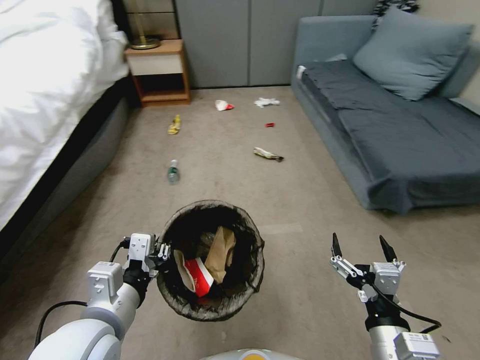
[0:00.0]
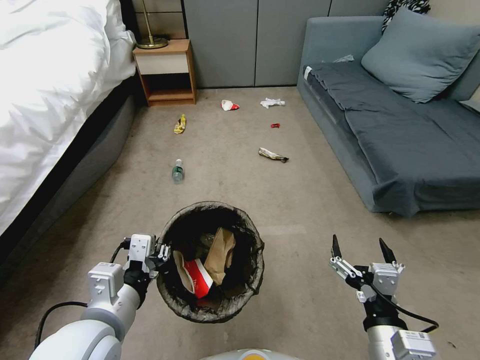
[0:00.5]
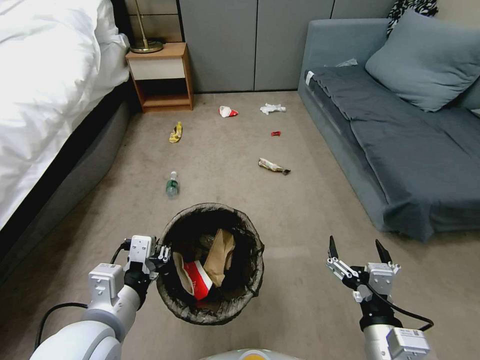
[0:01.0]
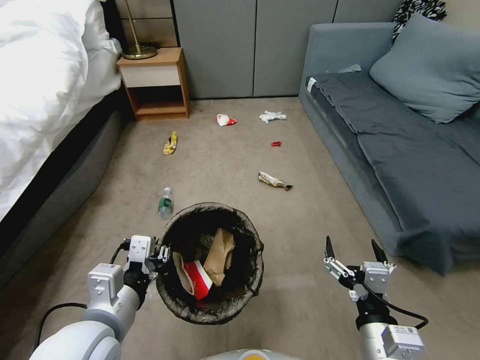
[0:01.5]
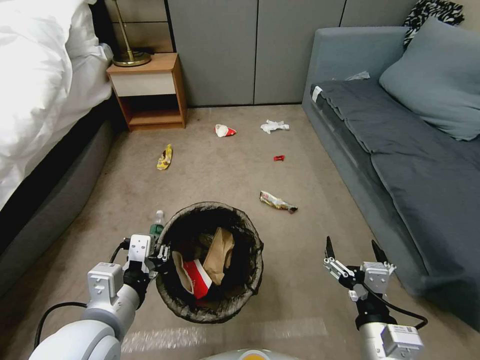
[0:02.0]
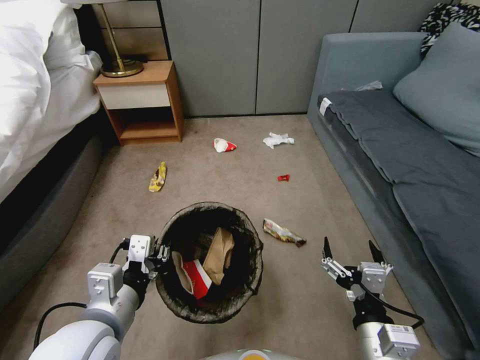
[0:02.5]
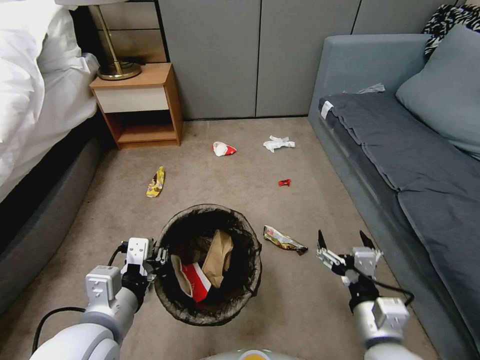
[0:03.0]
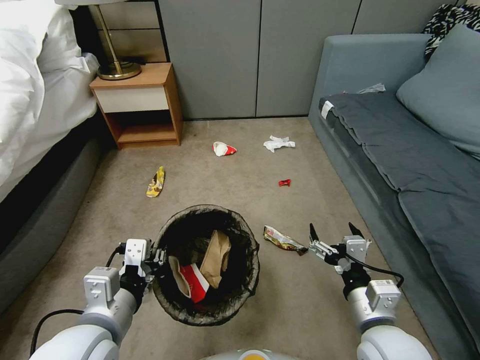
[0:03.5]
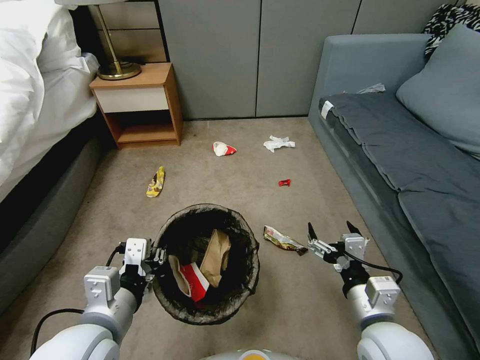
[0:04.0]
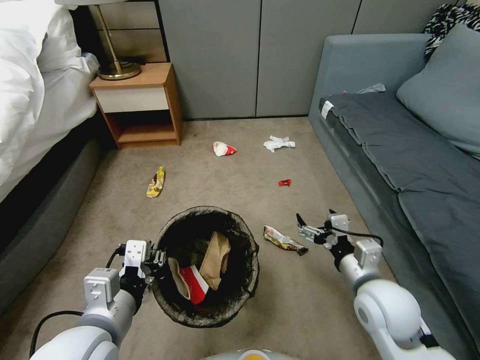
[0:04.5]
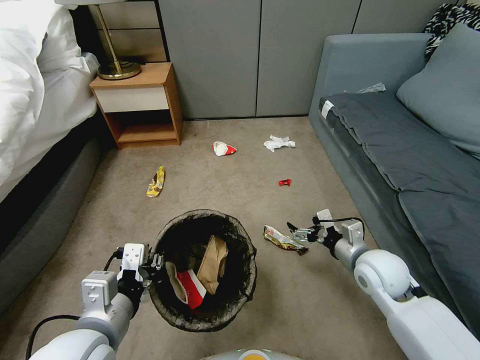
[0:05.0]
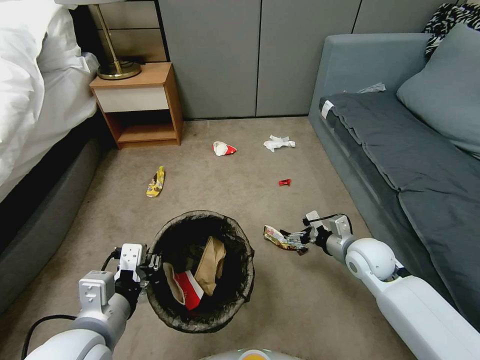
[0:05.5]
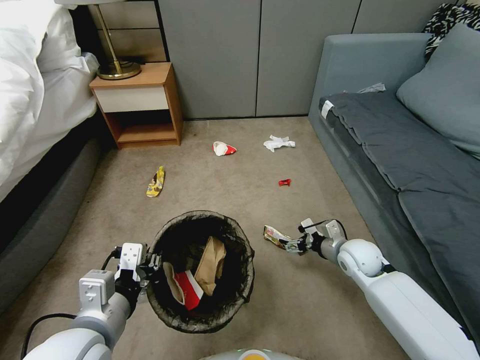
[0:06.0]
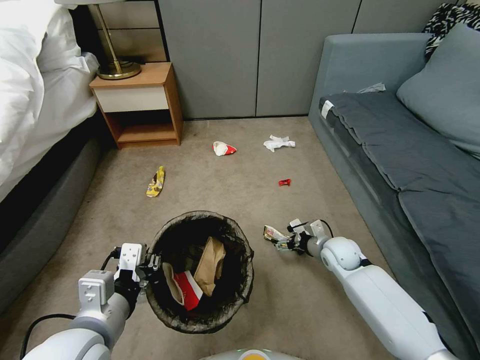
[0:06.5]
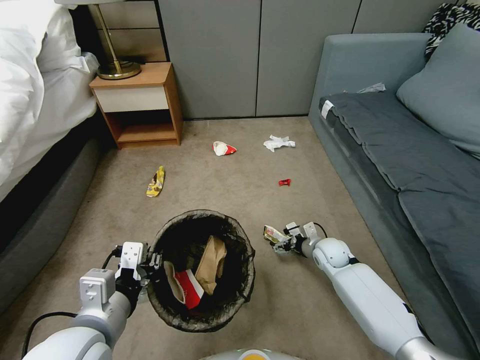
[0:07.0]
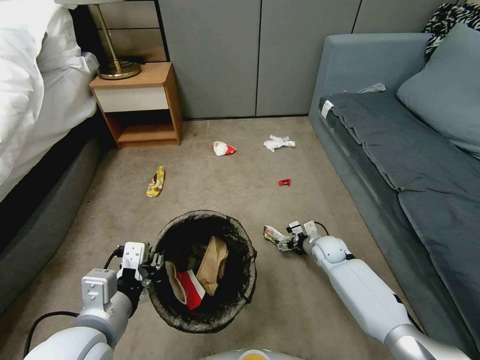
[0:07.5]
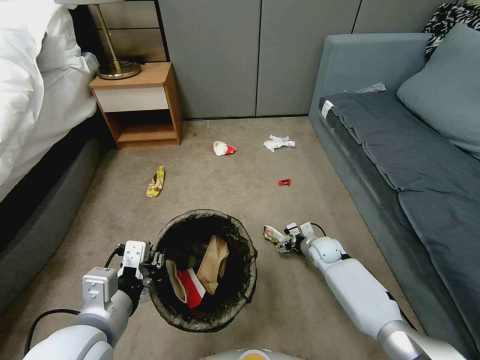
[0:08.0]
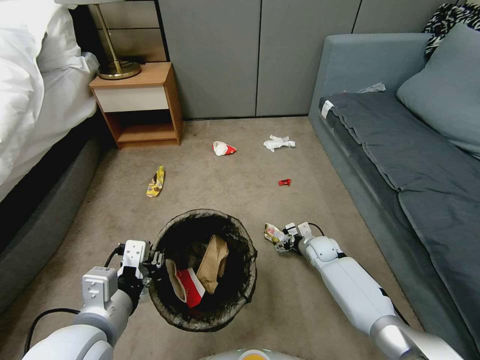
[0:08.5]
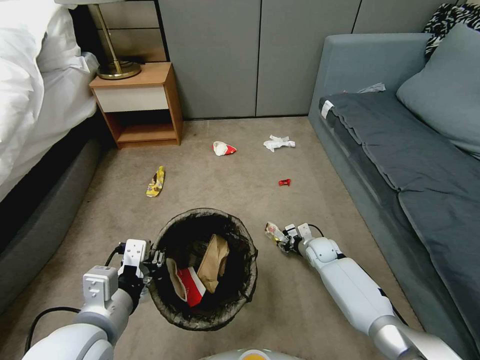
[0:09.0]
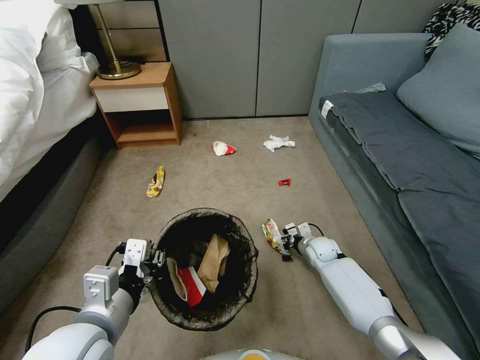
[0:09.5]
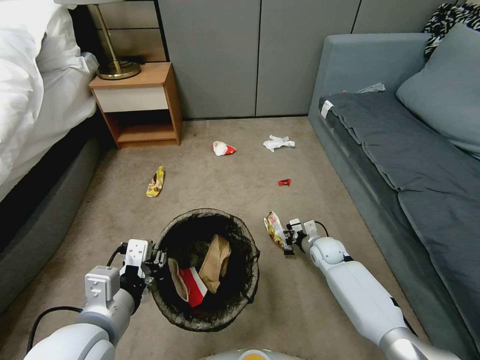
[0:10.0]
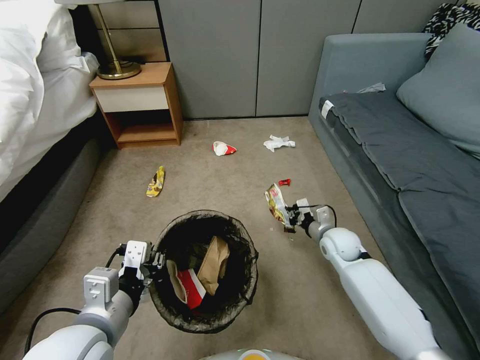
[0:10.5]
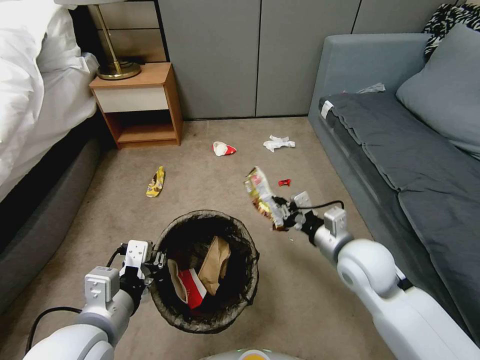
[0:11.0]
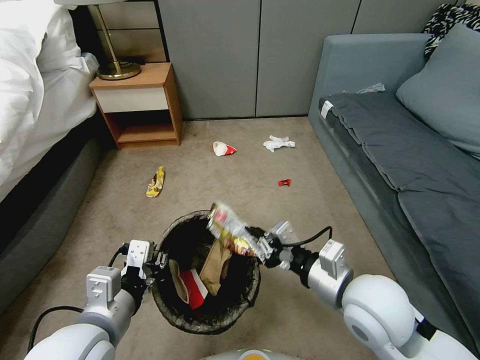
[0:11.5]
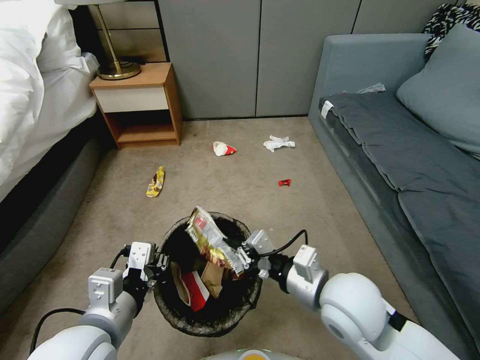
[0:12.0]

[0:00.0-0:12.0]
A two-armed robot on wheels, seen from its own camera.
Task of the whole recording: Pick up the trash bin, then pick up the garbage from the floor and place it into the trash bin.
0:02.0 to 0:04.0: The right gripper travels forward by about 5 cm.
0:04.0 to 0:06.0: The right gripper travels forward and downward by approximately 25 cm.
0:06.0 to 0:08.0: The right gripper moves downward and forward, some 10 cm.
0:08.0 to 0:10.0: The right gripper closes.
0:10.0 to 0:12.0: The right gripper heads upward and backward, covering about 30 cm.

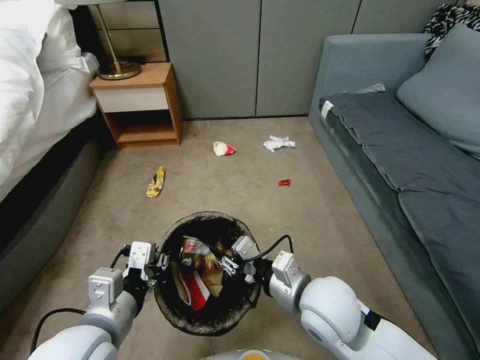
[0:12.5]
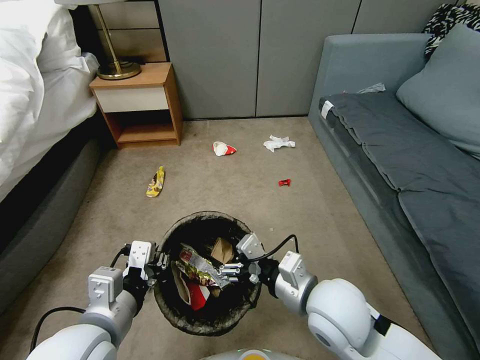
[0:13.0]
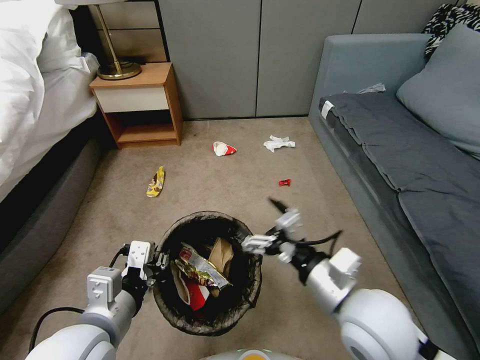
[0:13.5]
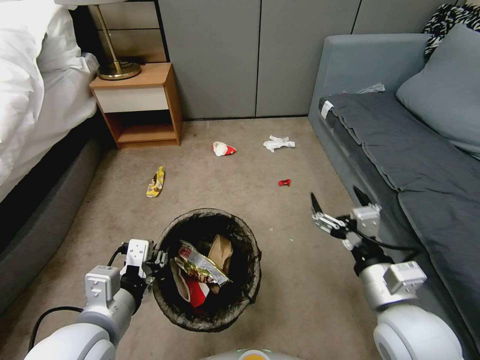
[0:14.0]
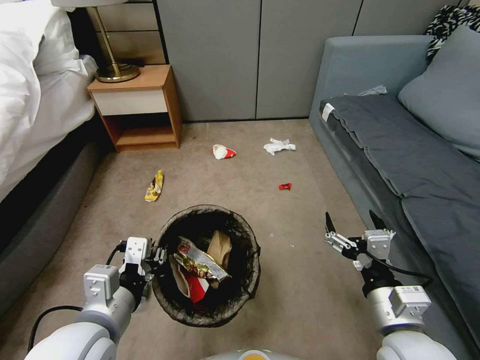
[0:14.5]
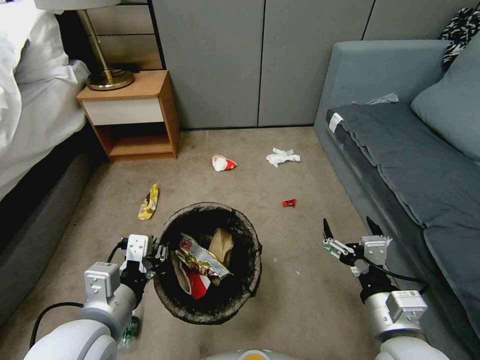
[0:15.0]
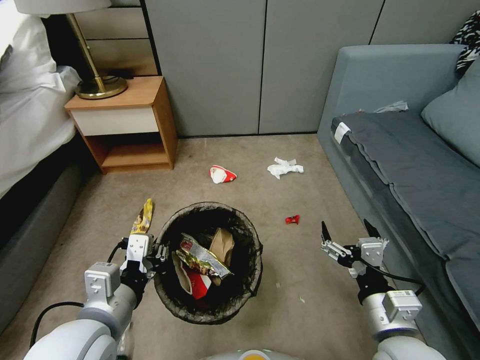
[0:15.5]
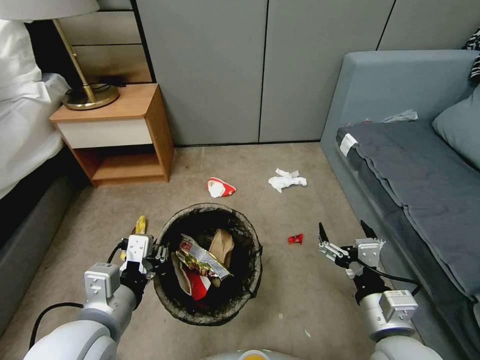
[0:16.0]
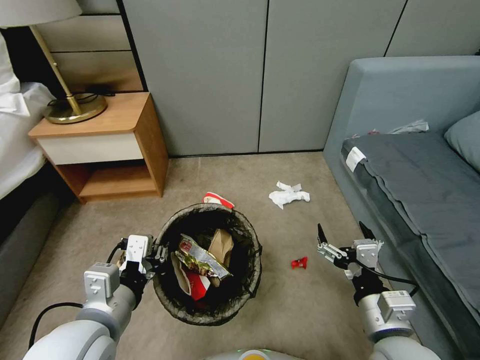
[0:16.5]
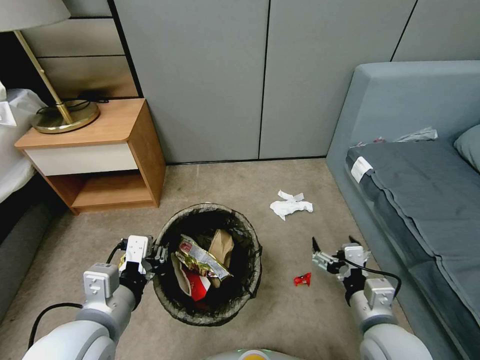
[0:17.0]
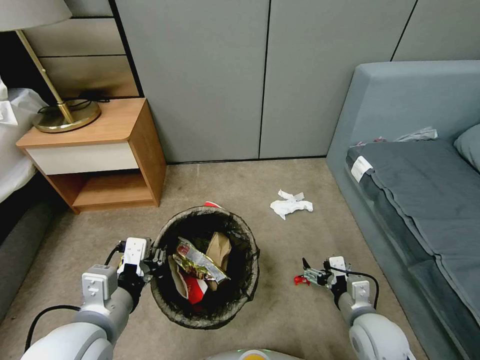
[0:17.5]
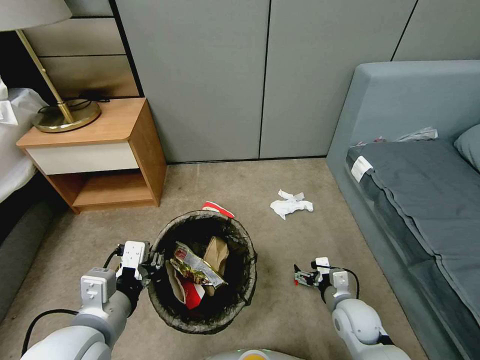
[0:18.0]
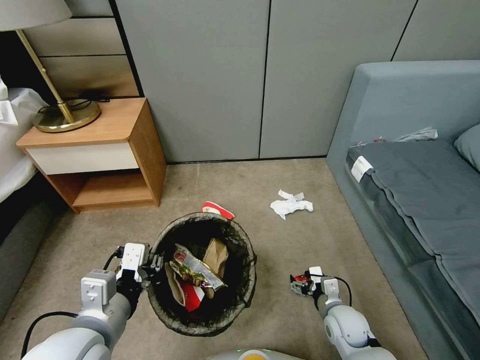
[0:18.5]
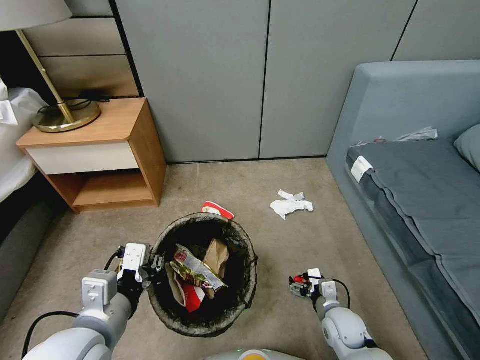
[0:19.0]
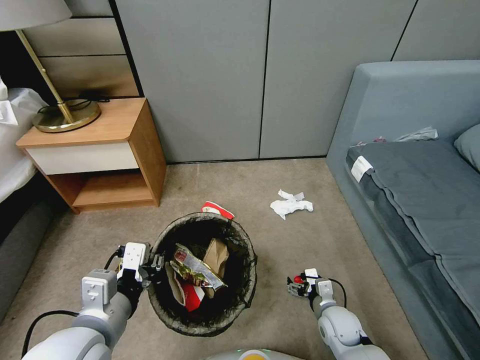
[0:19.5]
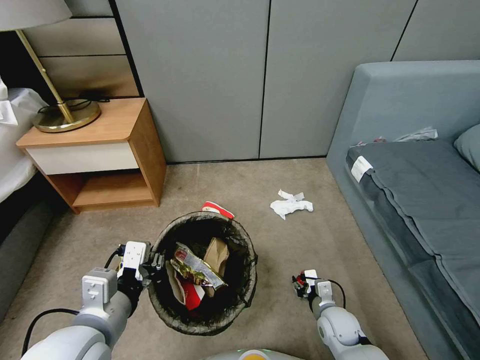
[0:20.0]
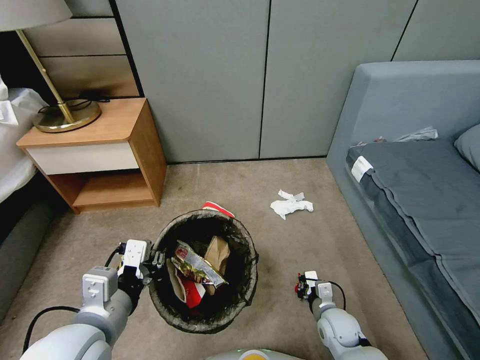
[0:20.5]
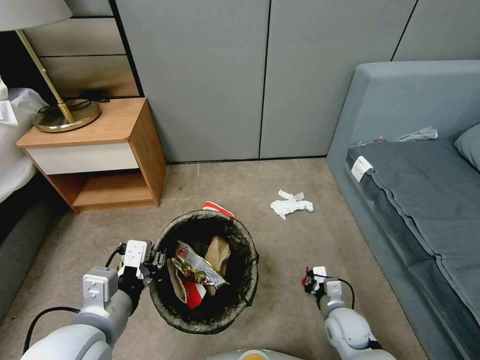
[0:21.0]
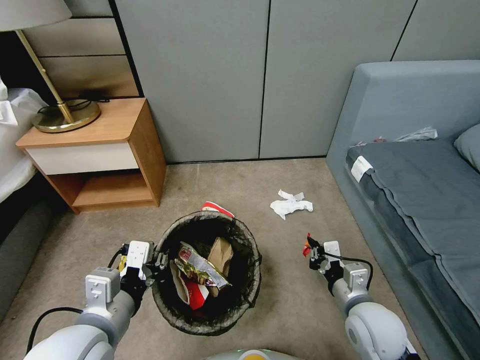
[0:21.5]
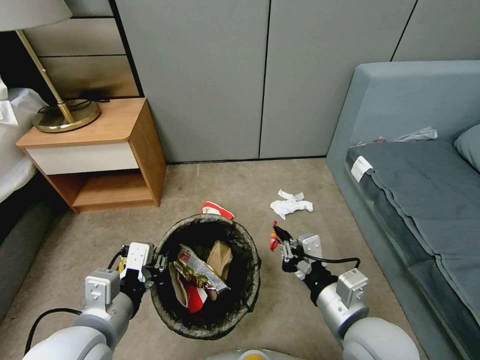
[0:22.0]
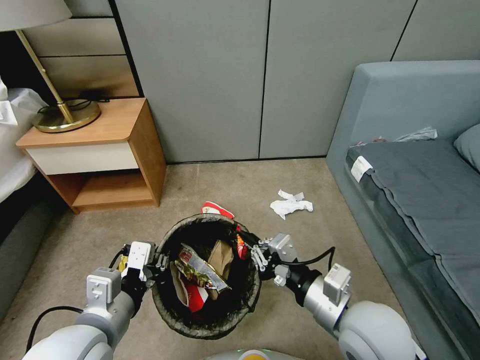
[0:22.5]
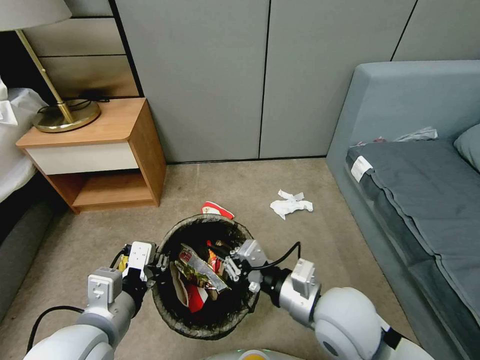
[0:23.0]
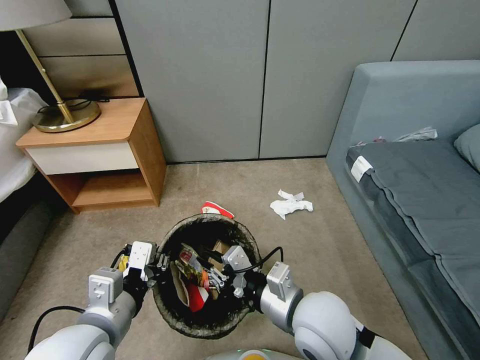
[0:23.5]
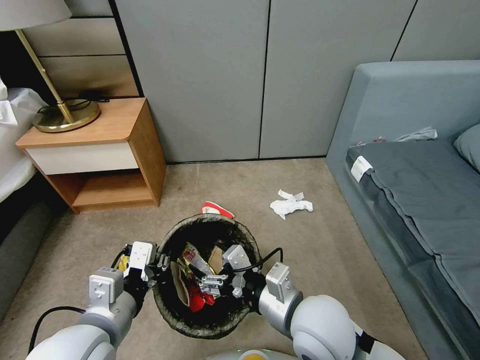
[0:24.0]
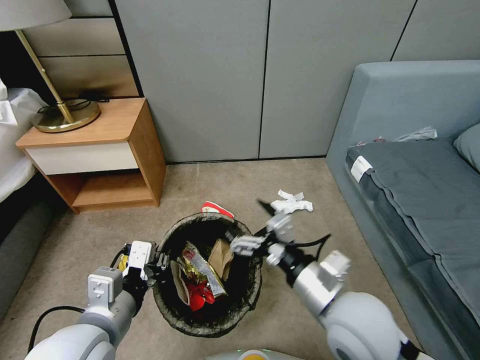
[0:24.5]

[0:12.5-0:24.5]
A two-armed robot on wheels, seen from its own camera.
Task of the whole recording: Pick up the trash bin, then pick up the garbage from the floor and place it into the trash bin.
0:12.5 to 0:14.5: The right gripper moves to the right and backward, some 15 cm, and opens its fingers.
0:16.5 to 0:18.5: The right gripper heads downward and forward, covering approximately 25 cm.
0:18.5 to 0:20.5: The right gripper closes up.
0:20.5 to 0:22.5: The right gripper moves upward, some 30 cm.
0:22.5 to 0:24.5: The right gripper opens its fingers.

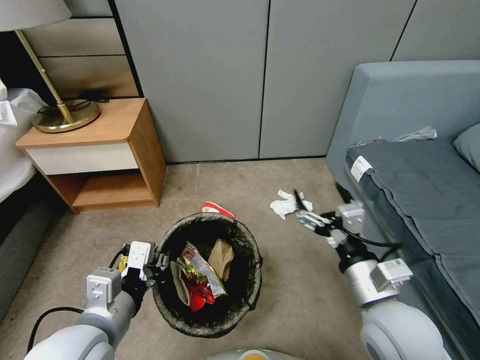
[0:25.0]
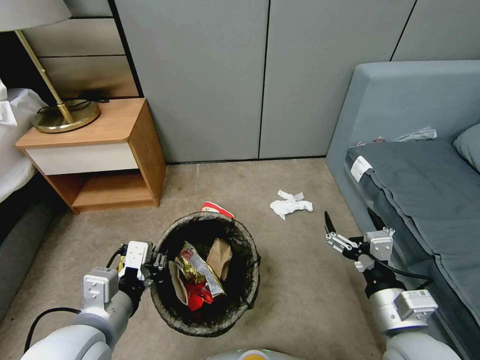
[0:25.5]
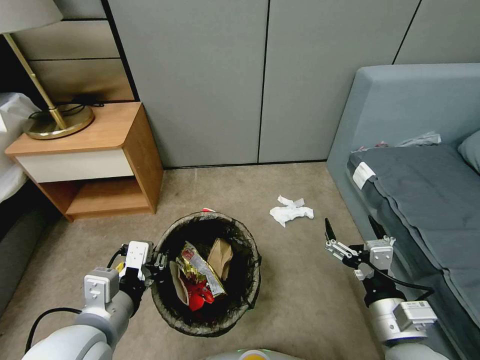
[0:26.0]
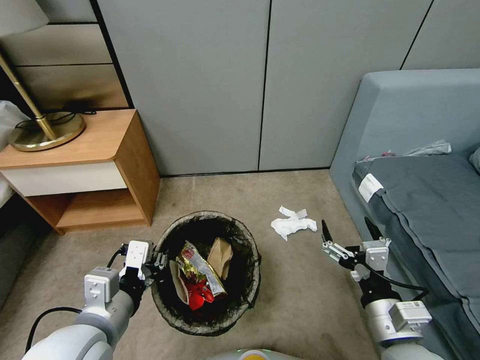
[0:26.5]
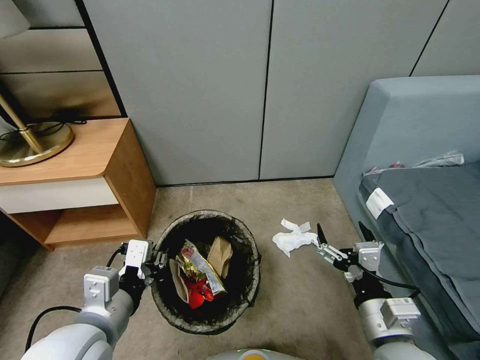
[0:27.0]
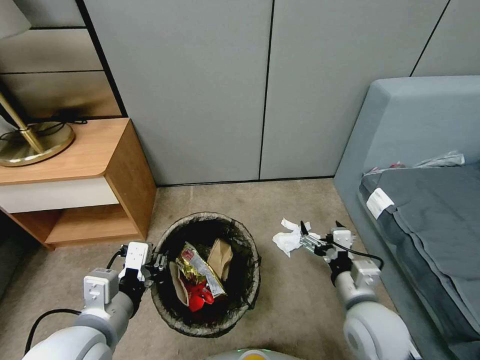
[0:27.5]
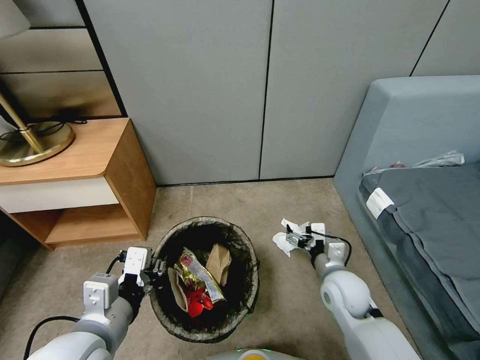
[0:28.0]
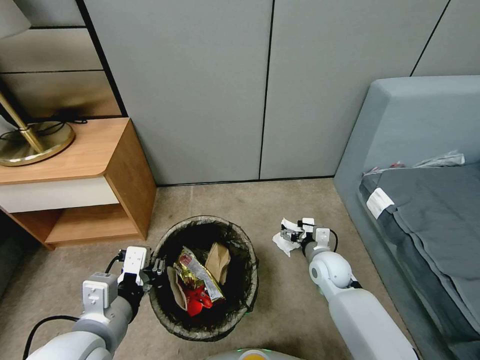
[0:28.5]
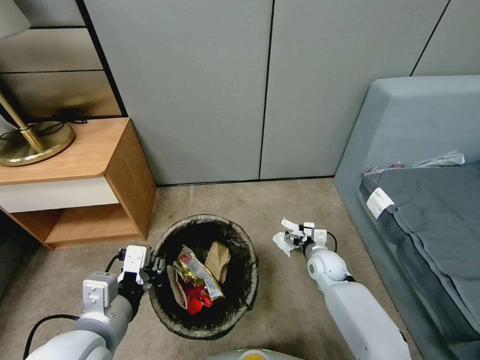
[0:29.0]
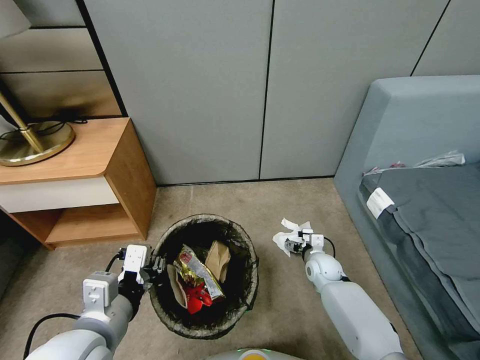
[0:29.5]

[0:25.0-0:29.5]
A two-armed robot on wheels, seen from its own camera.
Task of the whole recording: Pick up the trash bin, then pick up the garbage from the floor and place it into the trash bin.
0:25.0 to 0:27.0: The right gripper goes approximately 5 cm downward.
0:27.0 to 0:29.5: The right gripper heads forward and downward, covering some 35 cm.
